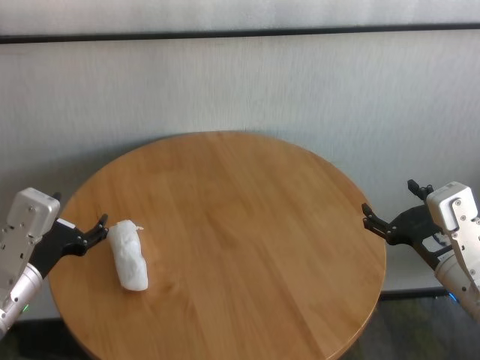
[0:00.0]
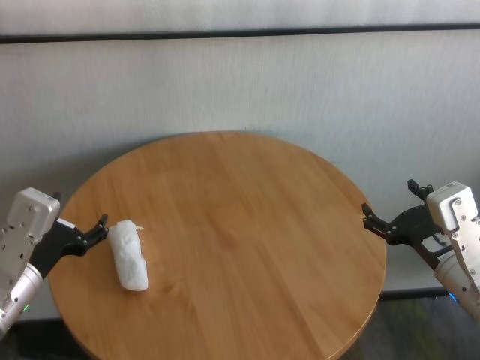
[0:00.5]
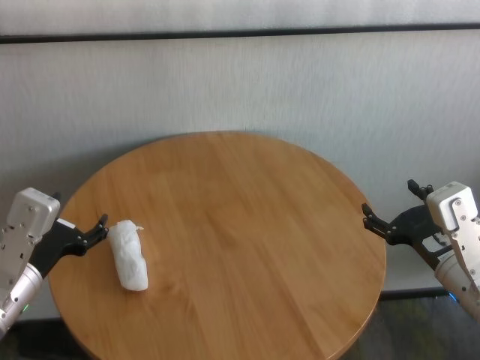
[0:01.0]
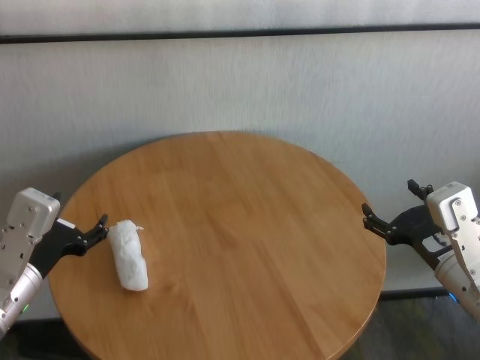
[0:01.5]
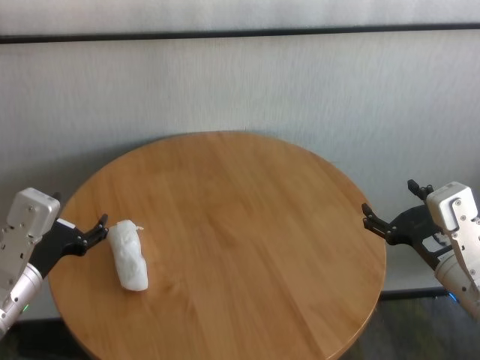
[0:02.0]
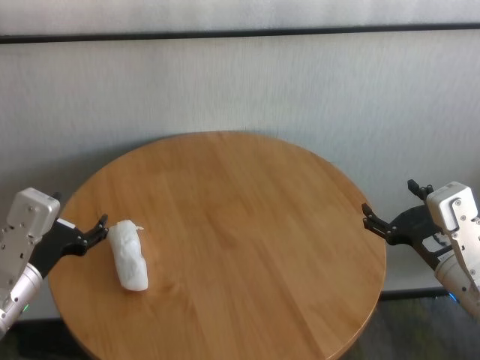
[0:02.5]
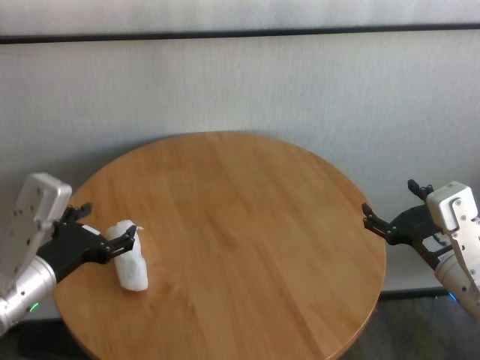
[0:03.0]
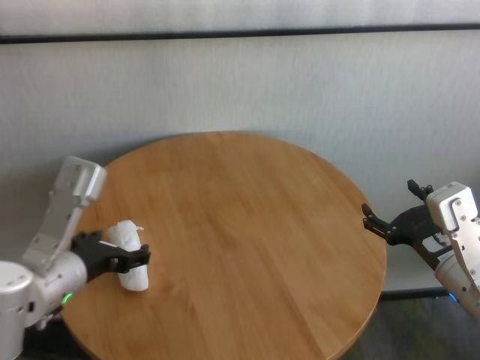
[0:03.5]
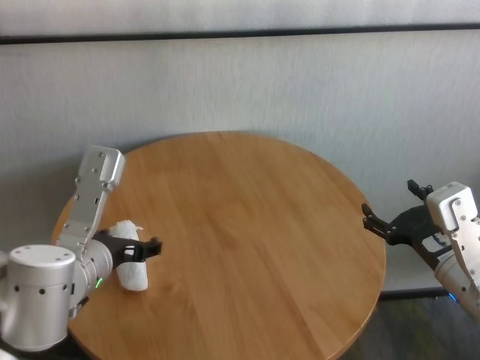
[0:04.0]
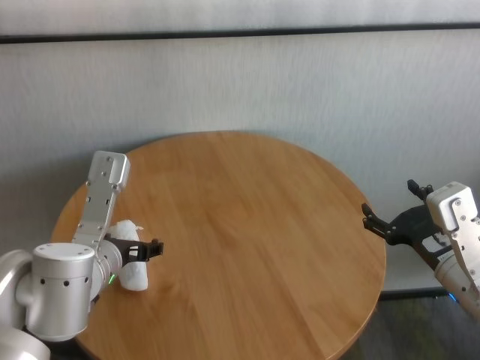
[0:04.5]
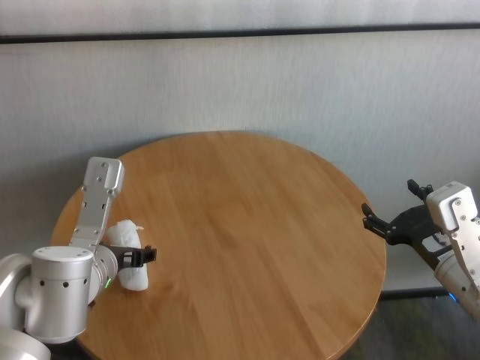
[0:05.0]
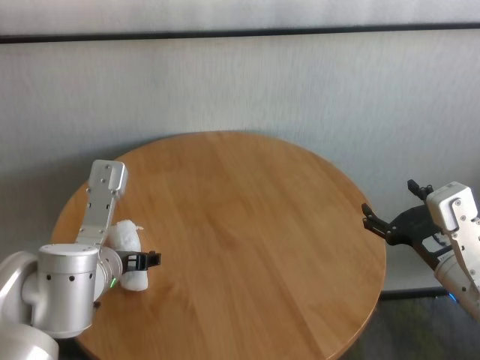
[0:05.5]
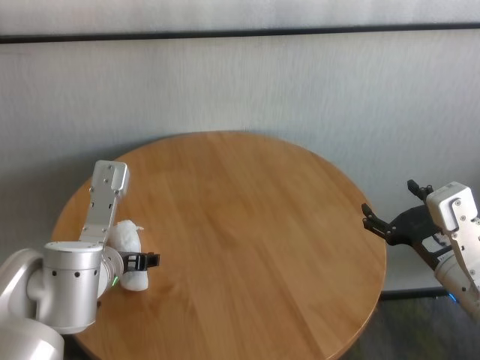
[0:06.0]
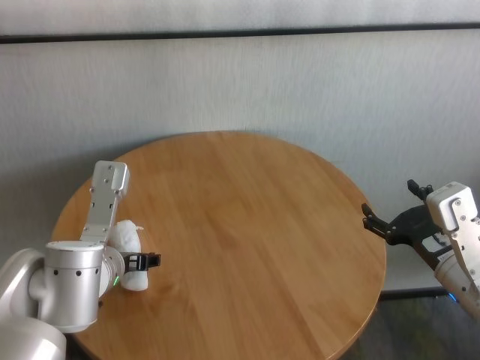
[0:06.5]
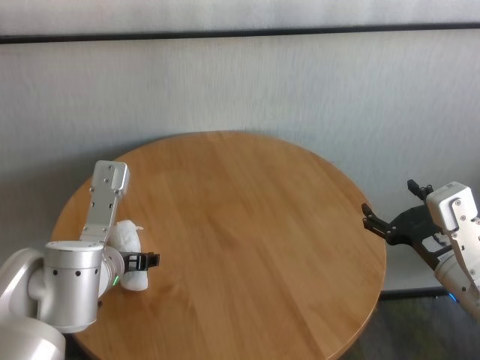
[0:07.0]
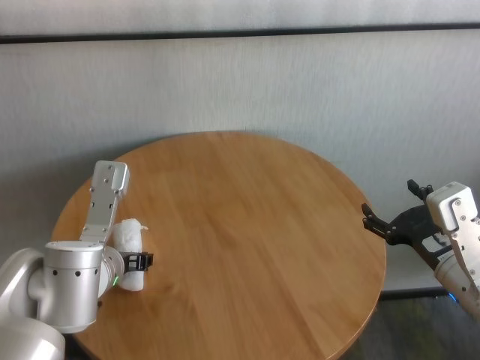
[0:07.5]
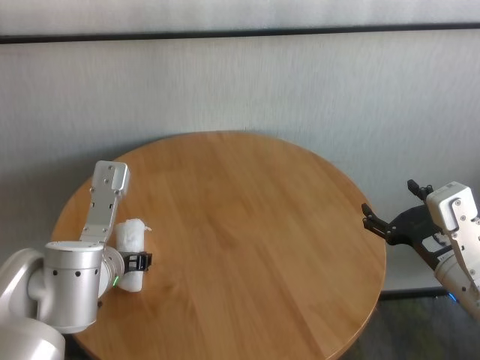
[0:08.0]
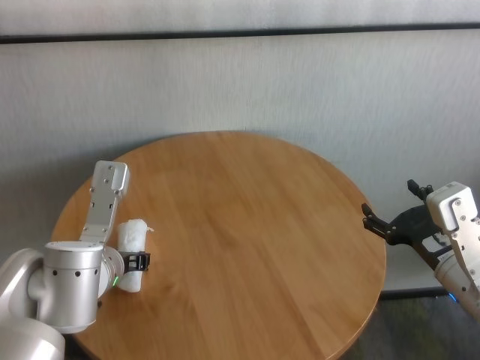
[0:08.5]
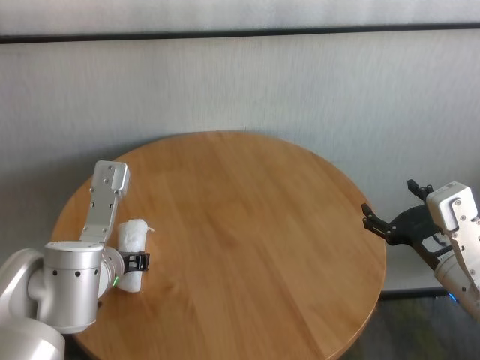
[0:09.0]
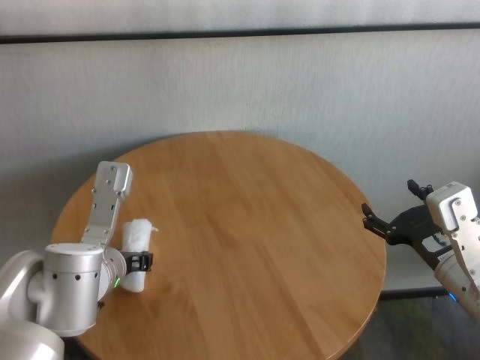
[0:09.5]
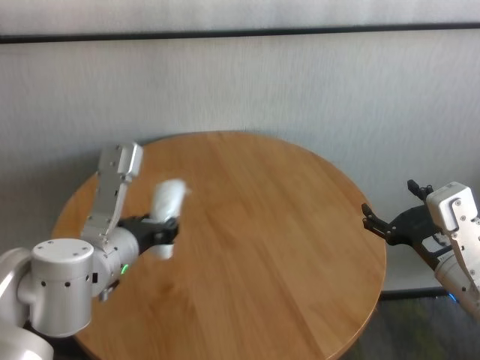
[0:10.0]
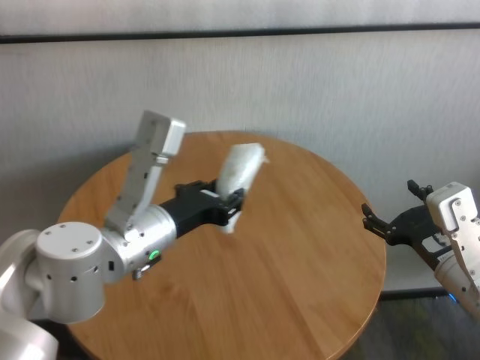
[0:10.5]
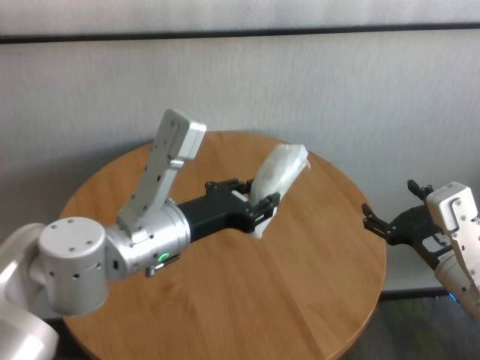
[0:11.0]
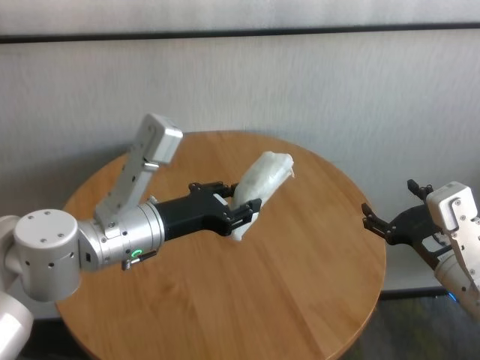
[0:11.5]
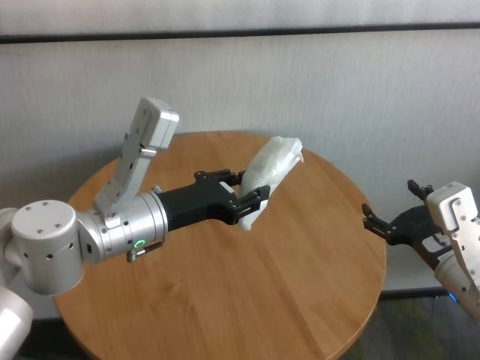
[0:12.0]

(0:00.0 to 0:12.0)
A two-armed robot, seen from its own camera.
Task of the whole recording: One hand took the sandbag from the other hand and placed it on the table.
Step, 0:00.0 - 0:08.5: Grasp the paper ball with left gripper.

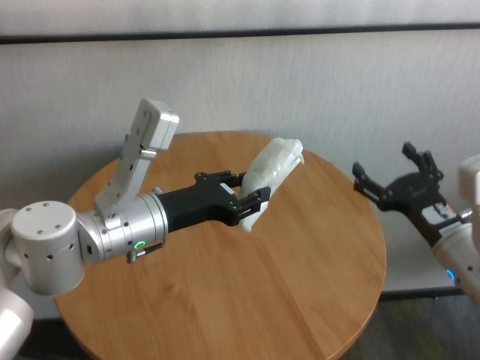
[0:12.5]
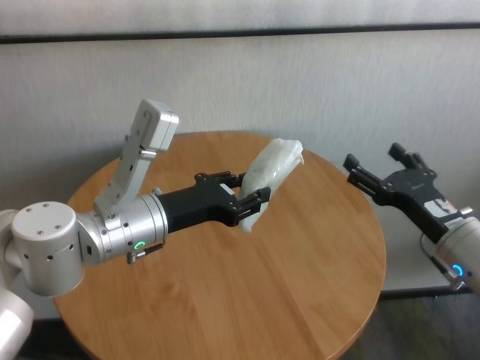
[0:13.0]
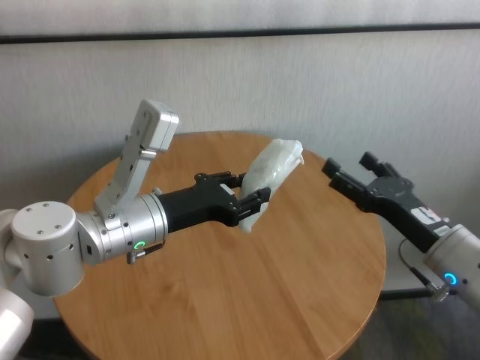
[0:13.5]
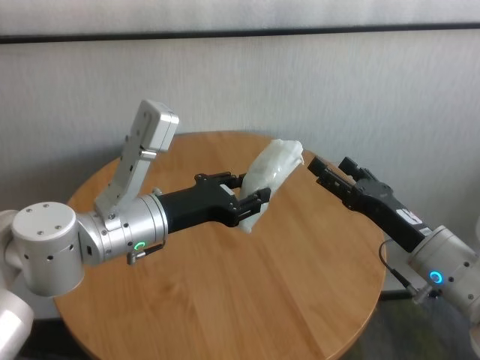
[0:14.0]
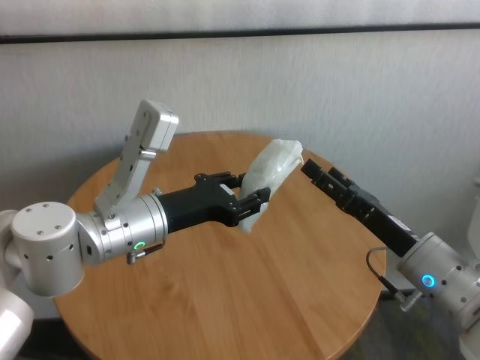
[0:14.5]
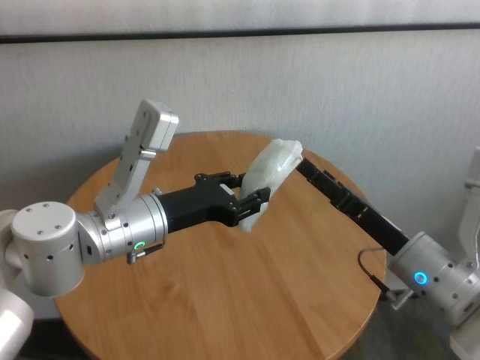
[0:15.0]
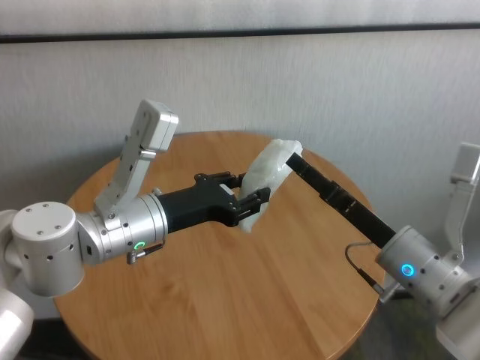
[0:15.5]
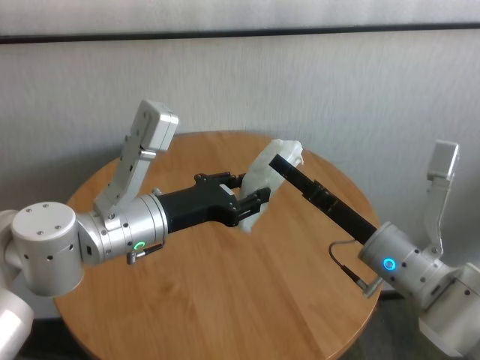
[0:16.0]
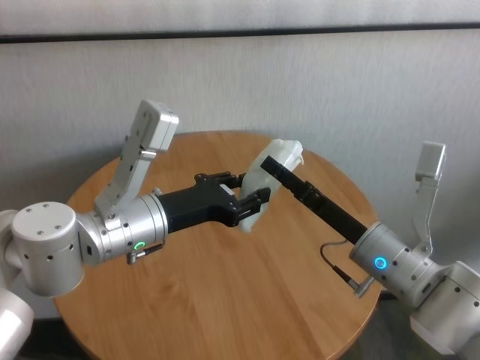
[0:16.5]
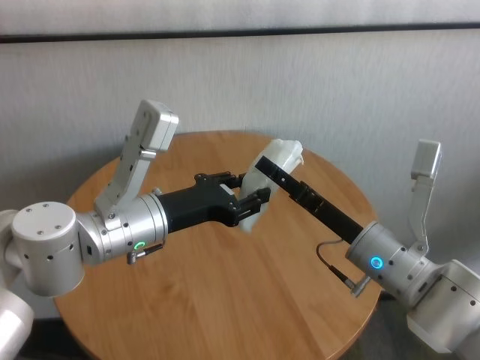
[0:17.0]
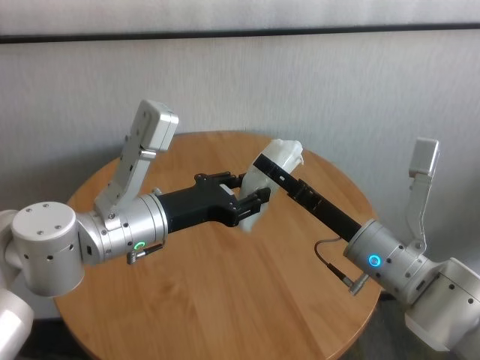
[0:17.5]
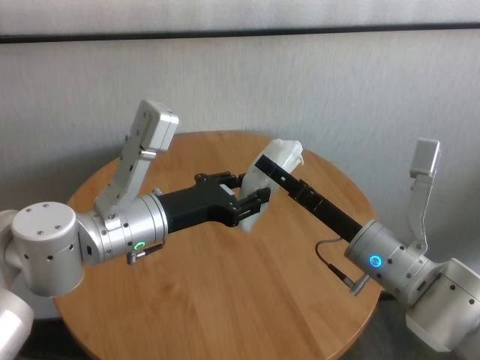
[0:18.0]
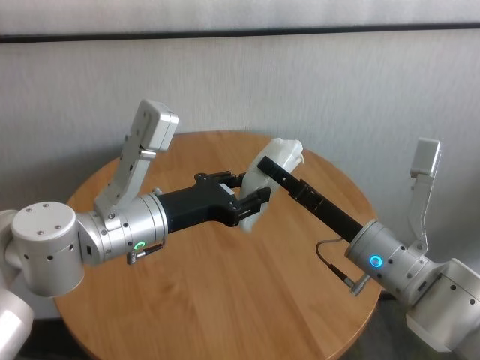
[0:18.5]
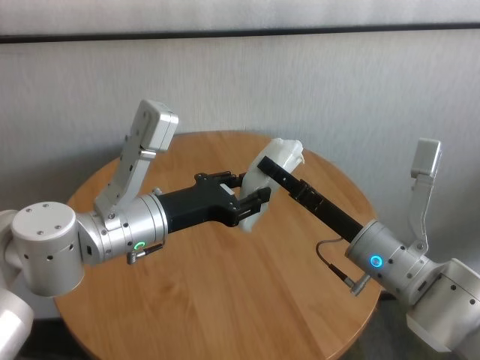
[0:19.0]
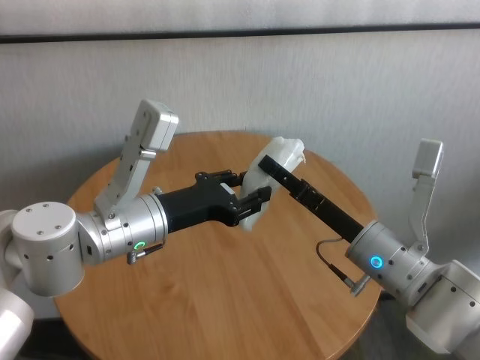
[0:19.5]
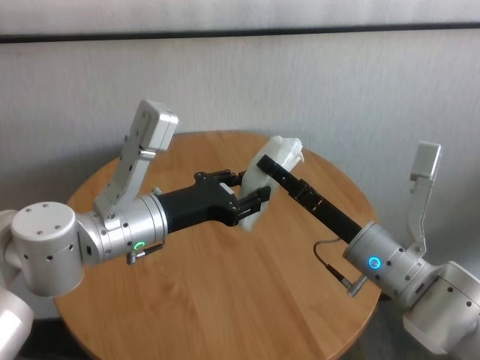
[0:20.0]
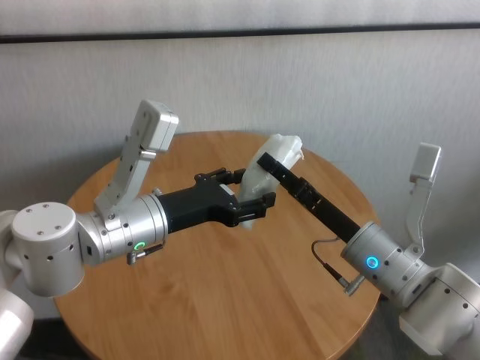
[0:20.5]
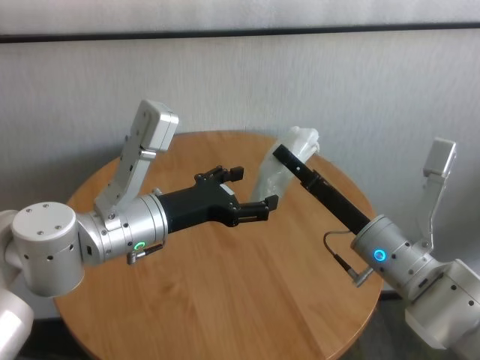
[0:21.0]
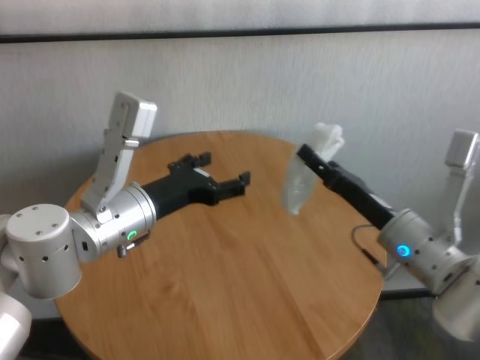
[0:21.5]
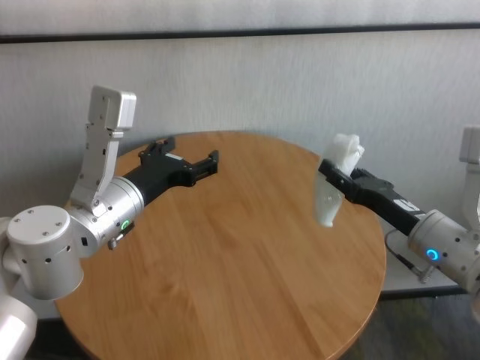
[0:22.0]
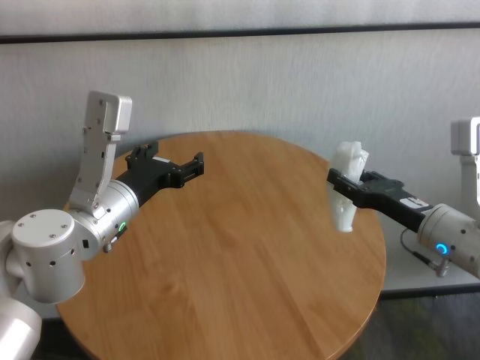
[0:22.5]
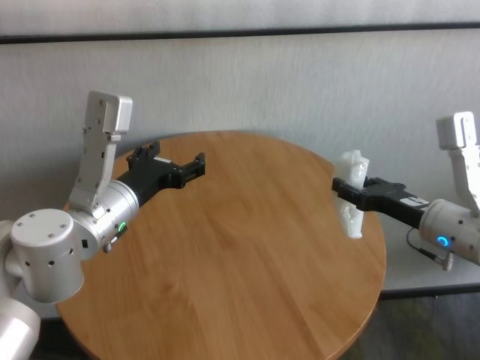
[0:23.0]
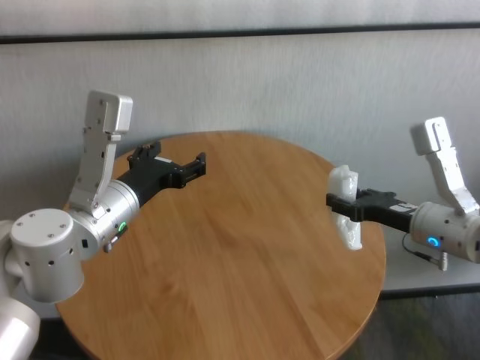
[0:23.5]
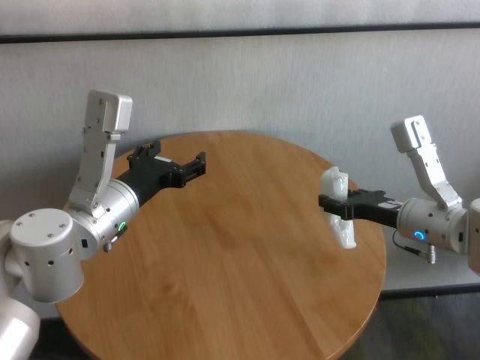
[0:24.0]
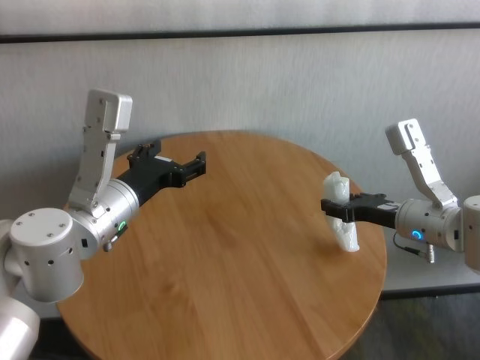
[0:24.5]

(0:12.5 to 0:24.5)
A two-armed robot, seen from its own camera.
Task of the whole recording: One hand took the sandbag from the other hand and placed it on the table.
Step, 0:12.5 - 0:21.0: Pass the paper ball to the right gripper.
